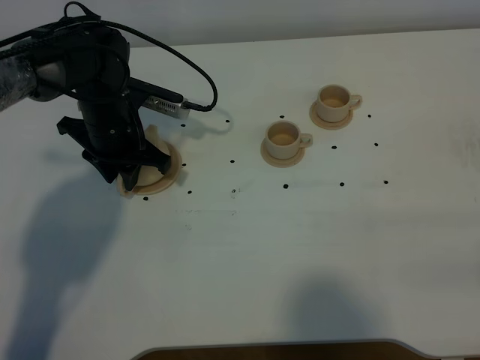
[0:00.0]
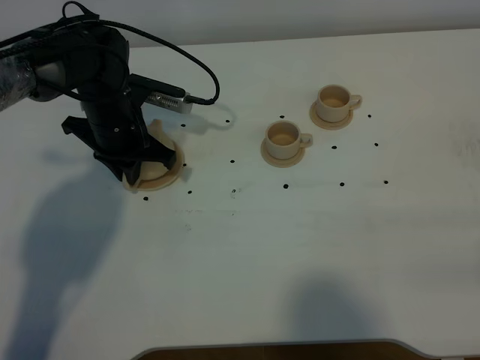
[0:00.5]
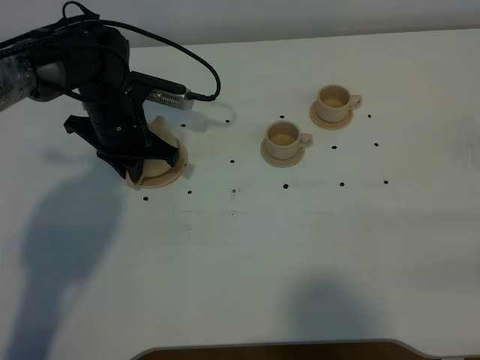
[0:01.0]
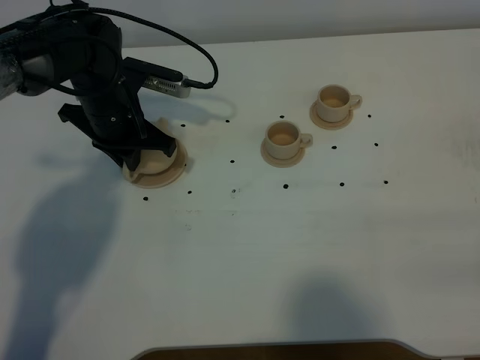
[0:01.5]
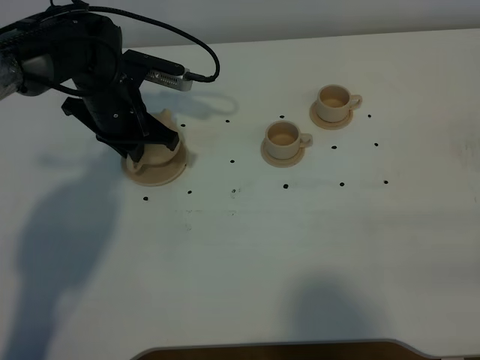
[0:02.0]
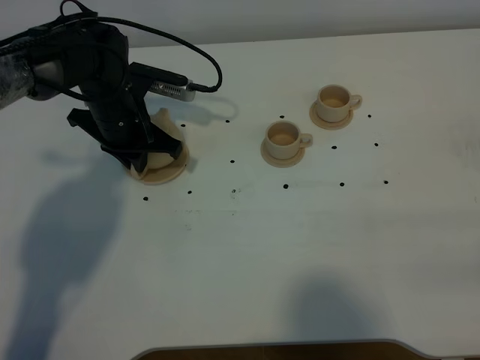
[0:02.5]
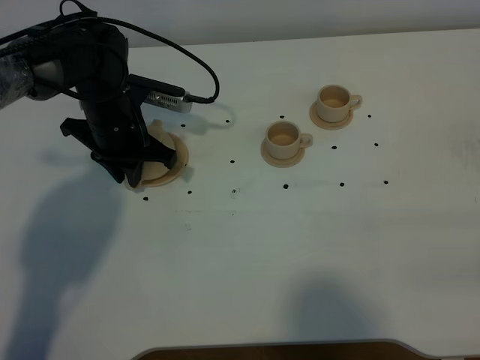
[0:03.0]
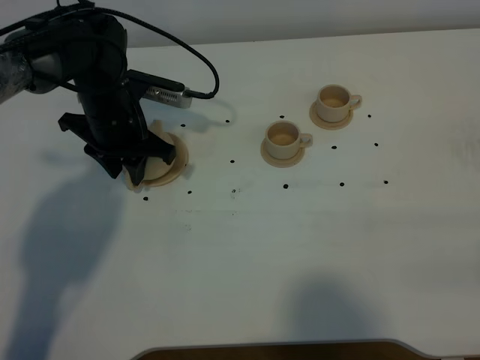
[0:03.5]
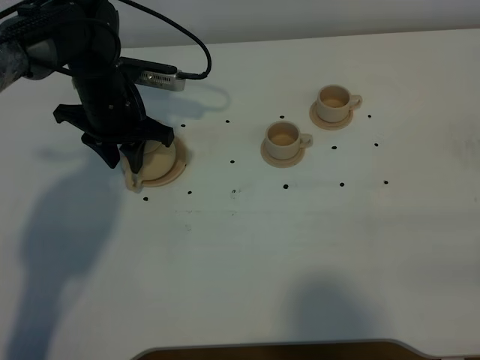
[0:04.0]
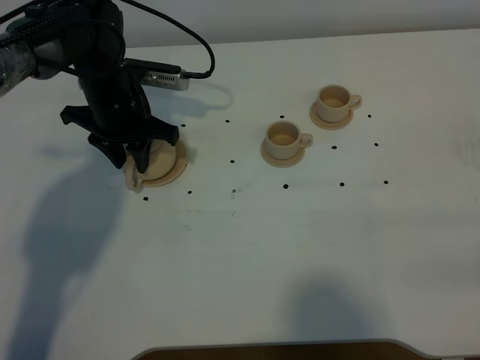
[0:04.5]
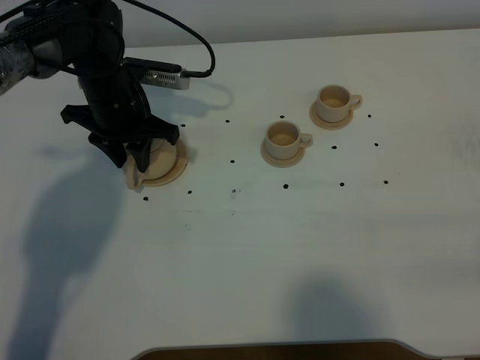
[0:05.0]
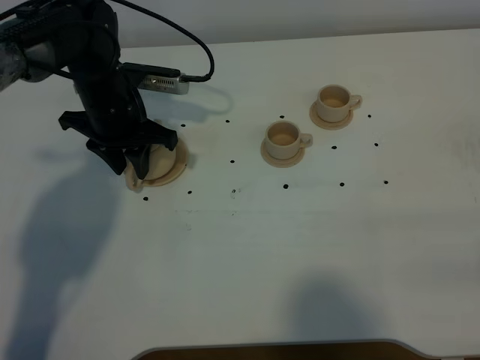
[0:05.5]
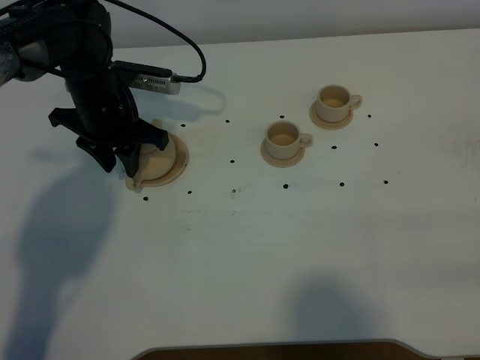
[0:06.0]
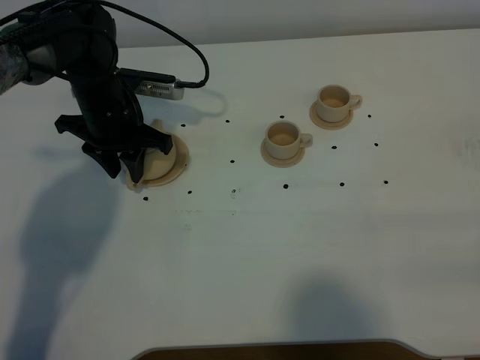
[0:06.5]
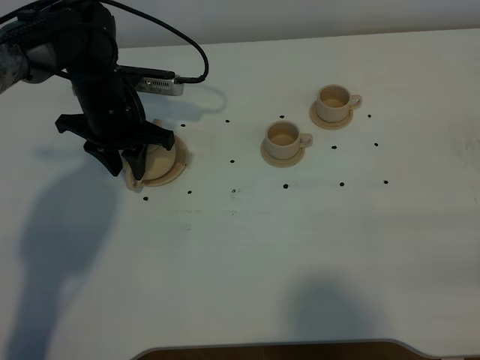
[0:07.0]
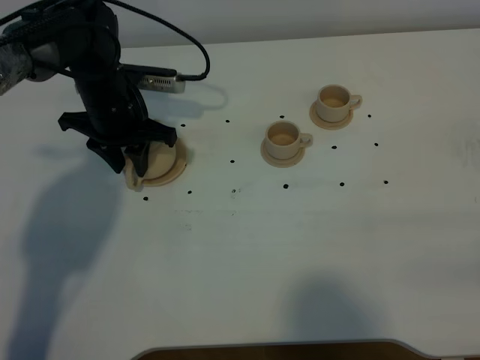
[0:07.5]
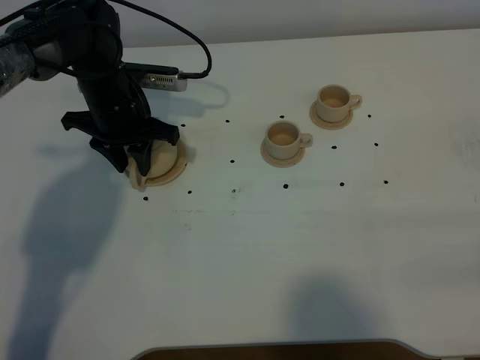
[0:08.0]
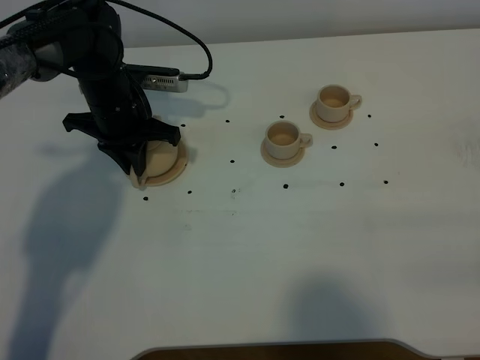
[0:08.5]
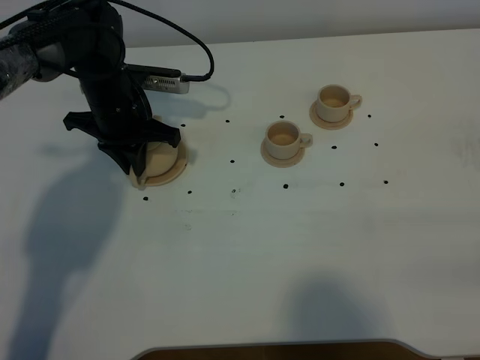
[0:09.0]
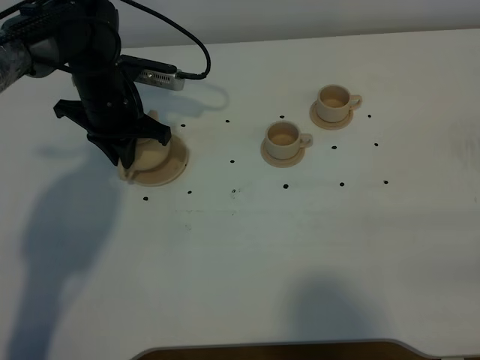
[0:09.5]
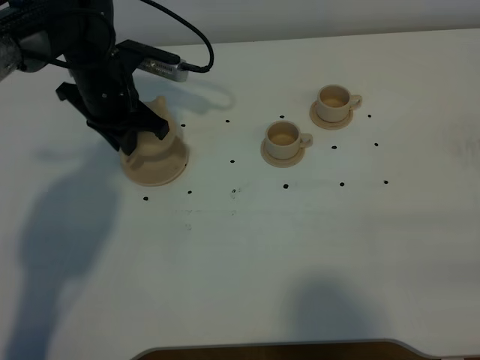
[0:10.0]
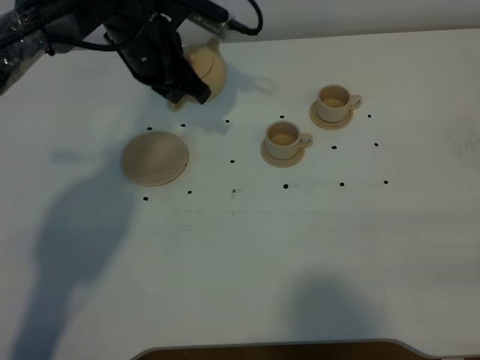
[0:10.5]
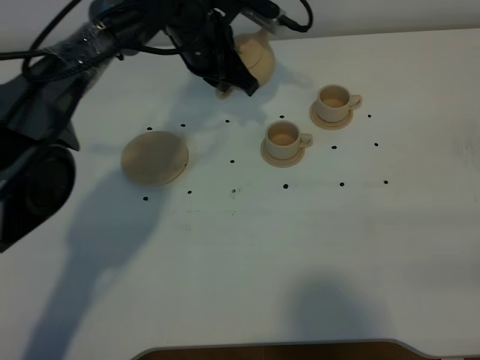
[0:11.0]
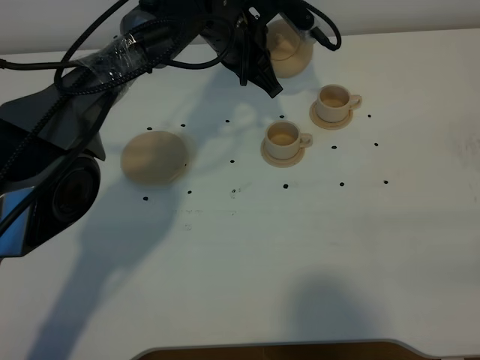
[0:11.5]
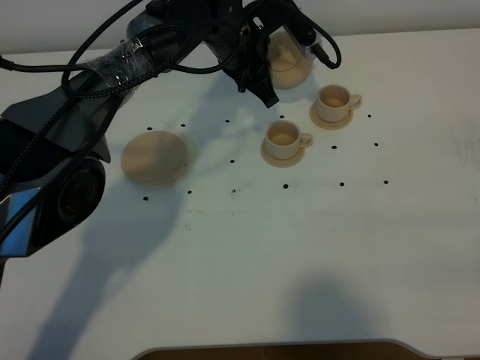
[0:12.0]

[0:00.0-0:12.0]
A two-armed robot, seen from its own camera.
Task of the whole recording: grasp the brown teapot and pour the tea into the two brown teacups one by one, put the brown teapot back in its original place.
Step, 0:00.0 to 0:02.0: Pick up the teapot with the left gripper.
0:00.0 to 0:02.0: The left gripper closes up.
0:02.0 to 0:04.0: The left gripper opens up.
0:04.0 to 0:06.0: Neither gripper changes place.
0:06.0 to 0:08.0: The grippers make only small movements.
0:08.0 to 0:10.0: The left gripper closes up.
0:10.0 to 0:12.0: The left gripper goes roughly 15 cm to the right.

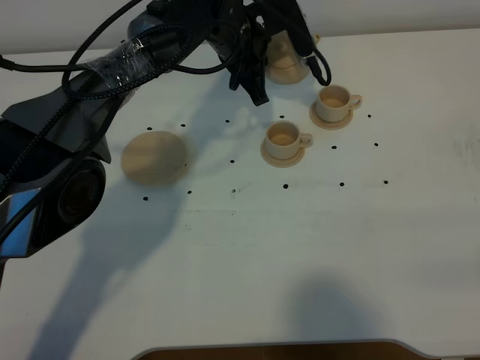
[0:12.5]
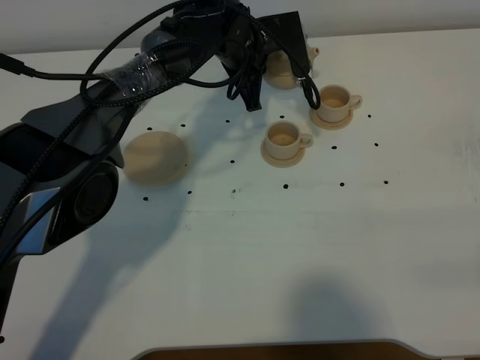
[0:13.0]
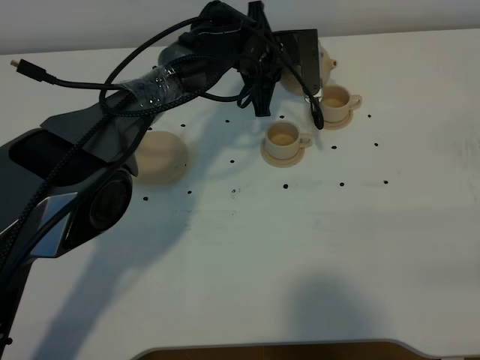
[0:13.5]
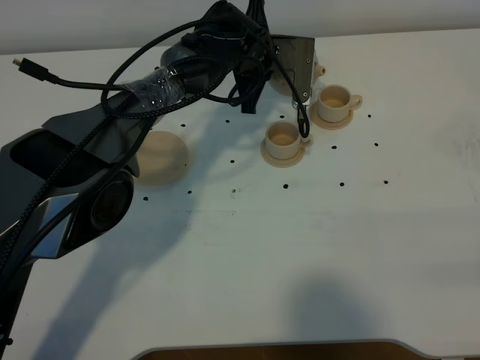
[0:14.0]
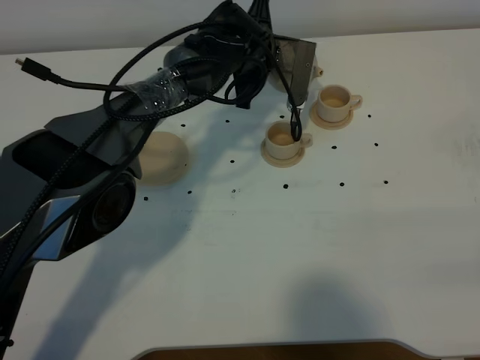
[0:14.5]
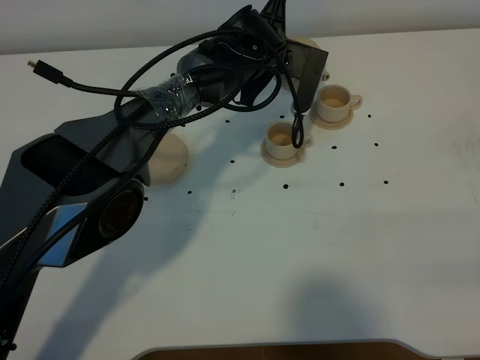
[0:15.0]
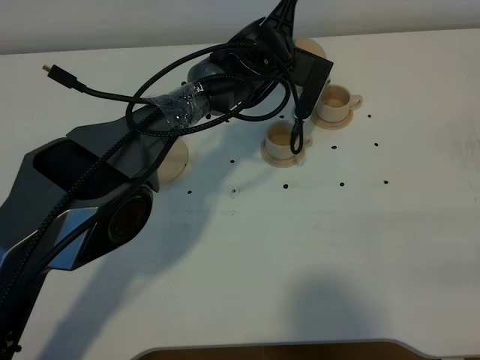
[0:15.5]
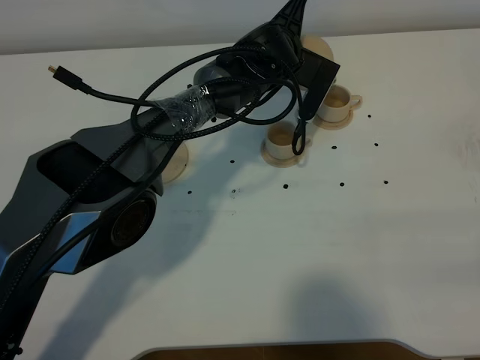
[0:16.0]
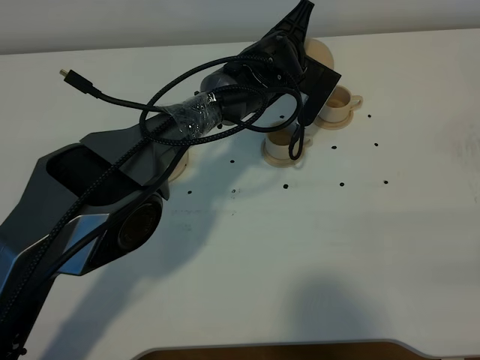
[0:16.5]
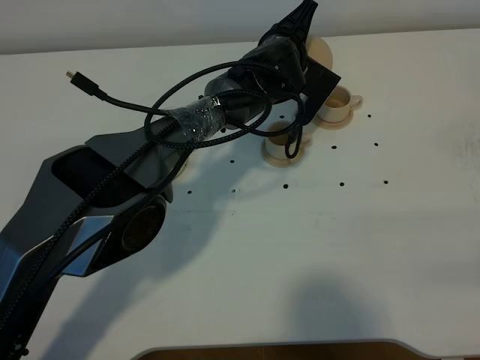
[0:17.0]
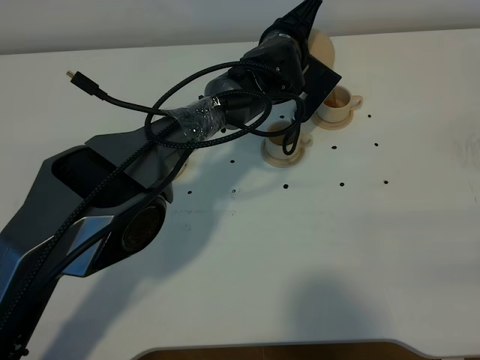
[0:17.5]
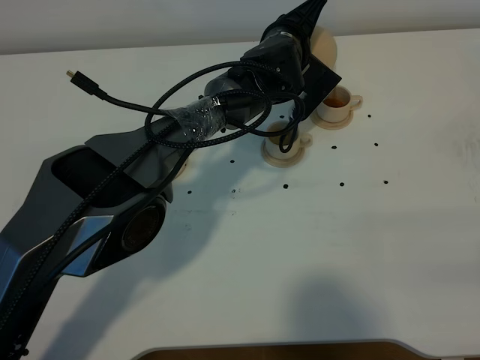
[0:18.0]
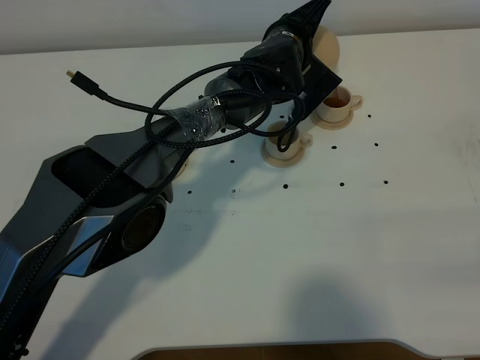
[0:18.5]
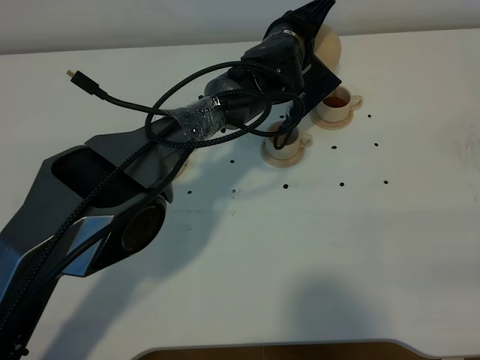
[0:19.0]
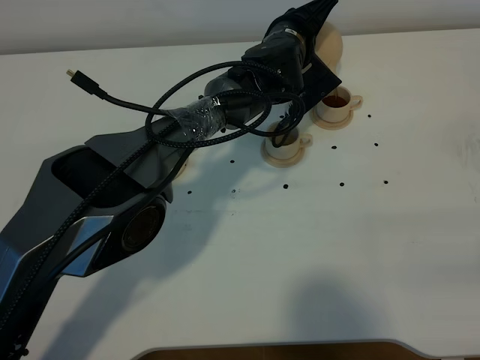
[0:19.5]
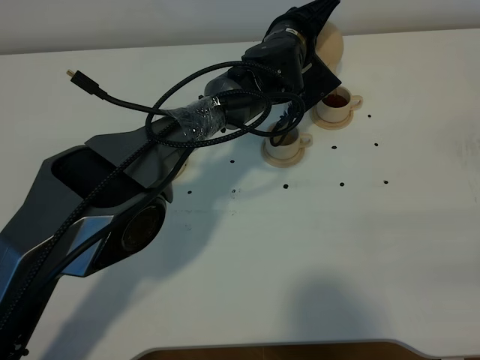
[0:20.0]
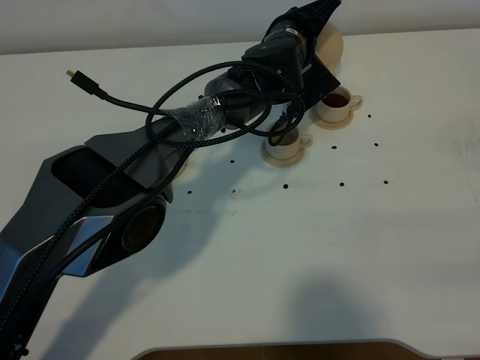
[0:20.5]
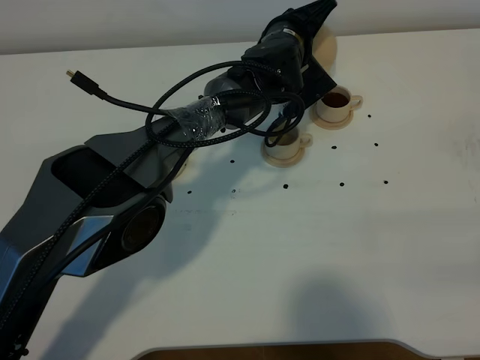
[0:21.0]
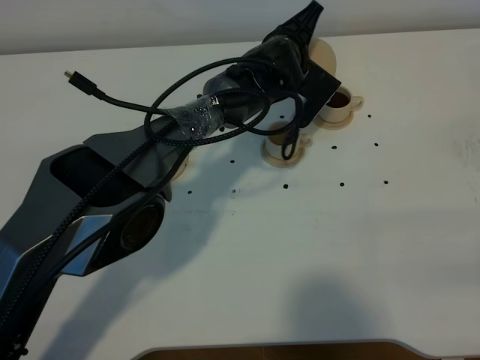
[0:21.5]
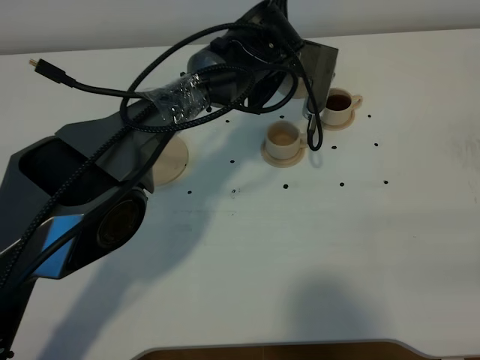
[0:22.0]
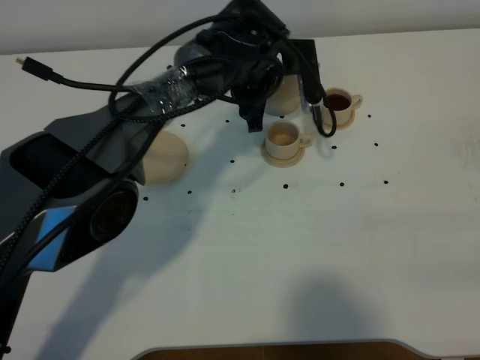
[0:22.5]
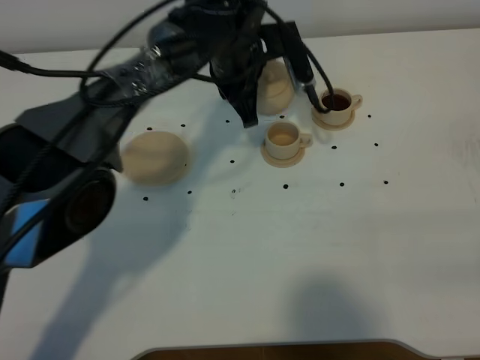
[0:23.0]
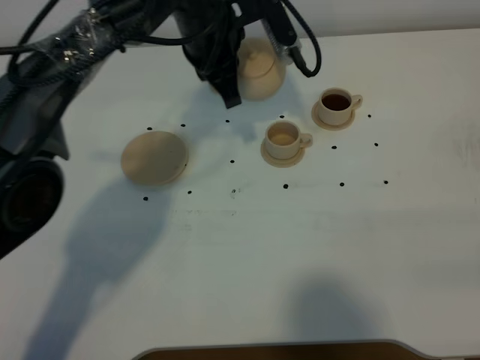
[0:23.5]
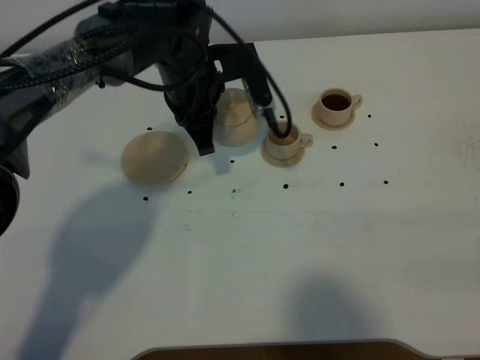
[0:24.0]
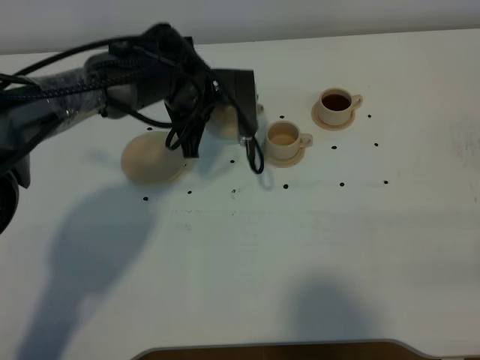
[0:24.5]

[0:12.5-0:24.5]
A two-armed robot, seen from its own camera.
Task of the whole recording: grasp the brown teapot and pour the tea into the two brown teacups one by one, put the brown teapot back in its original place.
0:16.5 to 0:18.5: The grippers stay close to where they were, moving slightly.
0:18.5 to 0:20.5: The grippers make only small movements.
0:20.5 to 0:22.5: The left gripper moves to the left, approximately 5 cm.
0:22.5 to 0:24.5: The left gripper is displaced to the left by some 10 cm, and goes upward and returns, roughly 10 cm each way.

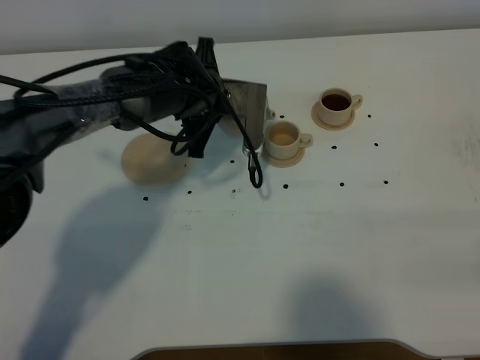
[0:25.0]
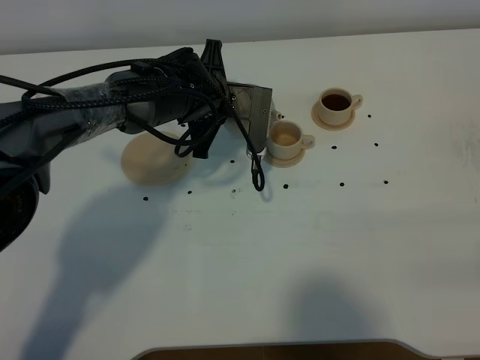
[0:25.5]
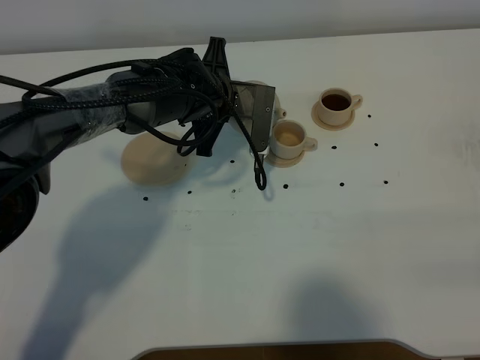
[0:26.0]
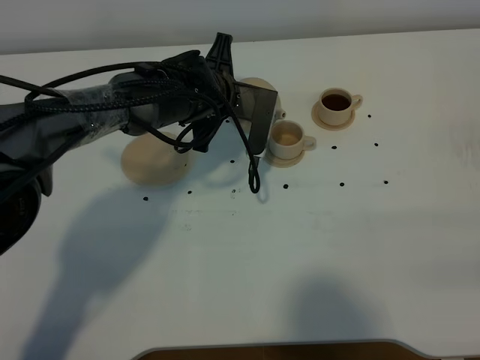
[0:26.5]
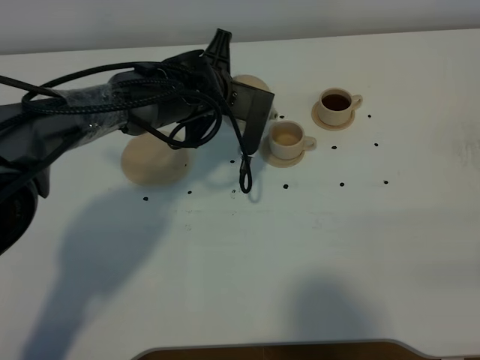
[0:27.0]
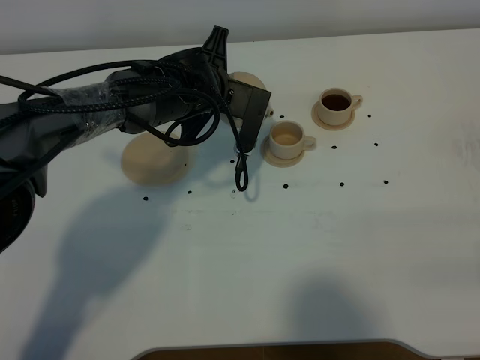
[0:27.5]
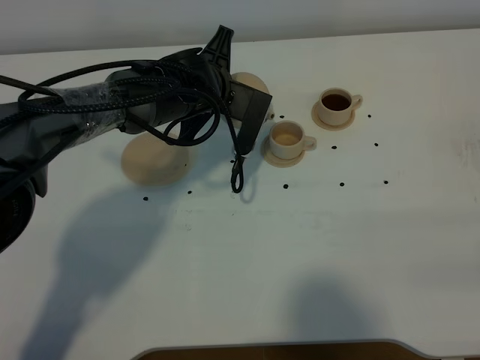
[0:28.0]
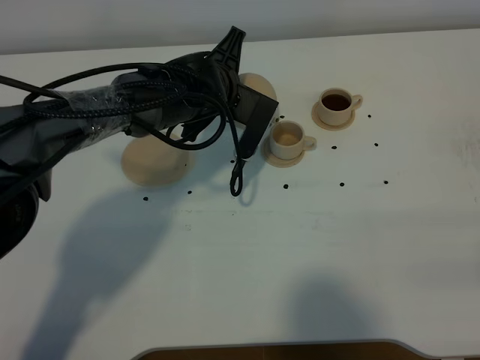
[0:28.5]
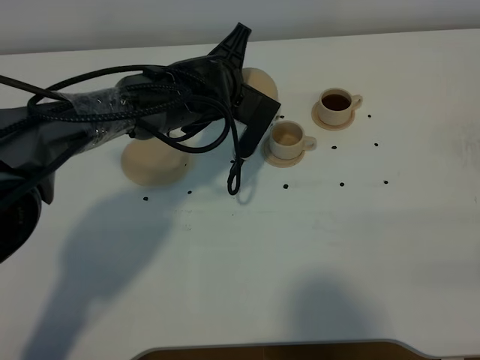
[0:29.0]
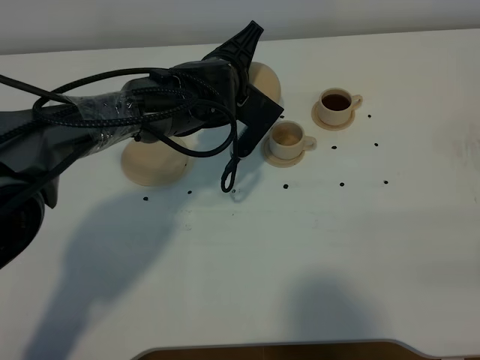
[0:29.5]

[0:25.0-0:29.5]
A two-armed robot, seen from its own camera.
Task of the whole recording: grasp the brown teapot and pour the tea into the two brown teacups one by one, put the brown teapot back in its original place.
0:25.0 to 0:27.0: The grippers stay close to where they were, moving slightly.
